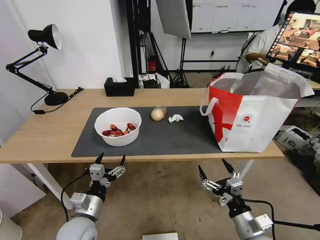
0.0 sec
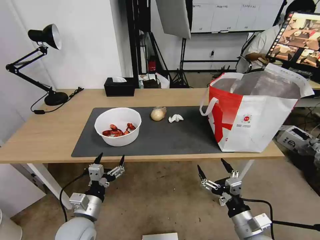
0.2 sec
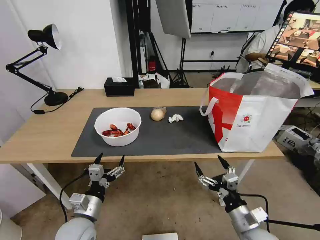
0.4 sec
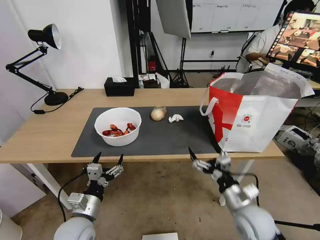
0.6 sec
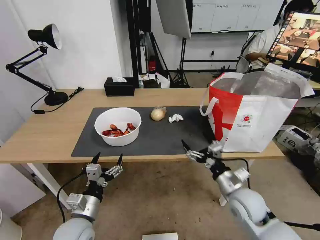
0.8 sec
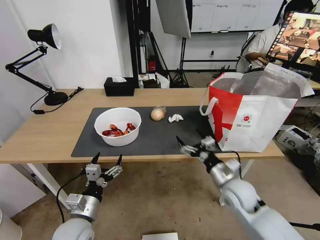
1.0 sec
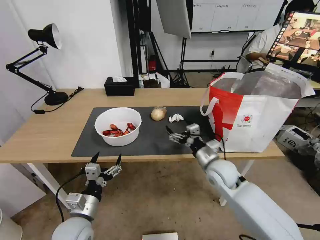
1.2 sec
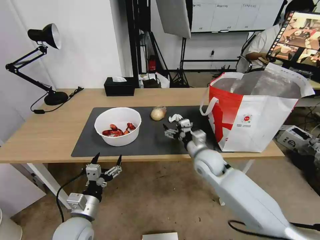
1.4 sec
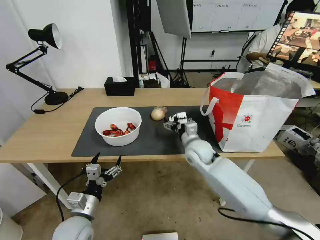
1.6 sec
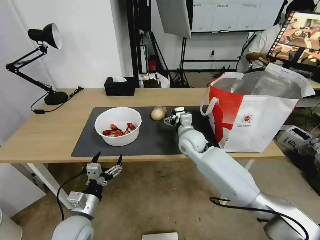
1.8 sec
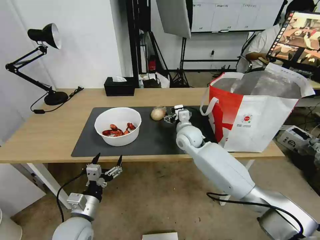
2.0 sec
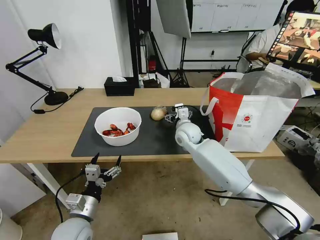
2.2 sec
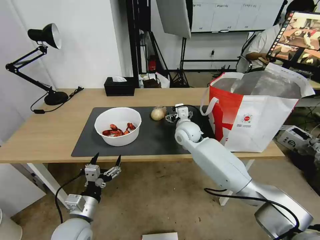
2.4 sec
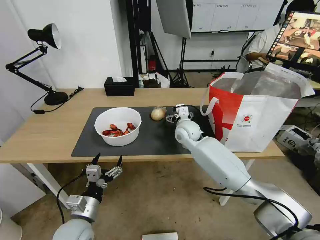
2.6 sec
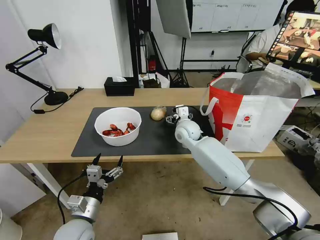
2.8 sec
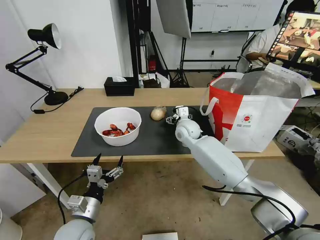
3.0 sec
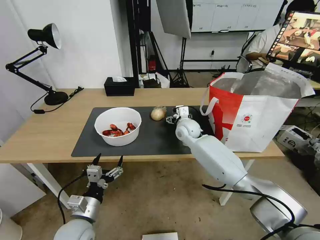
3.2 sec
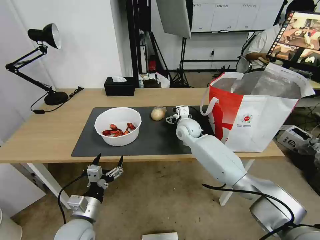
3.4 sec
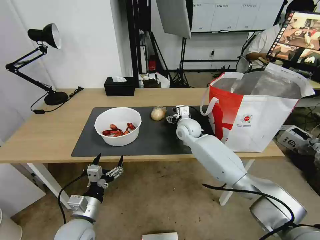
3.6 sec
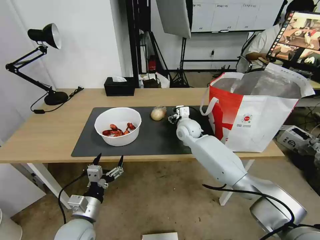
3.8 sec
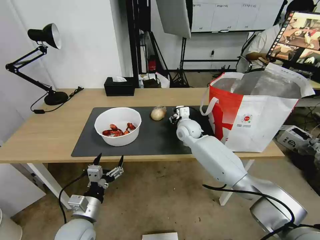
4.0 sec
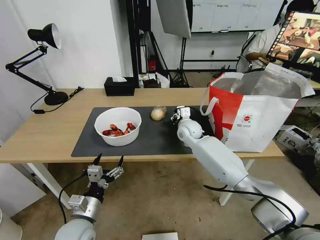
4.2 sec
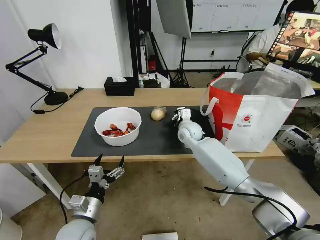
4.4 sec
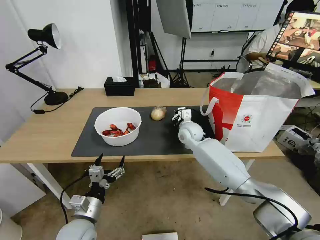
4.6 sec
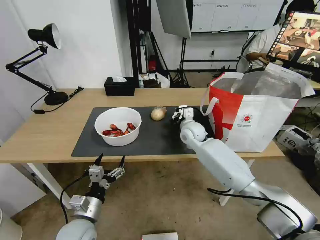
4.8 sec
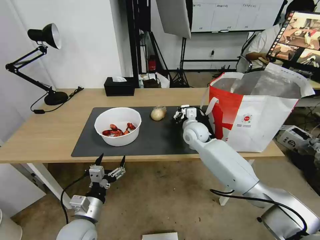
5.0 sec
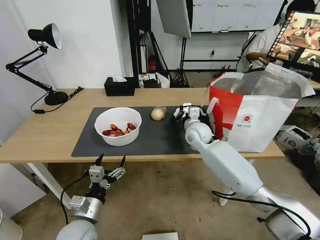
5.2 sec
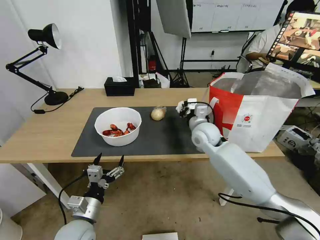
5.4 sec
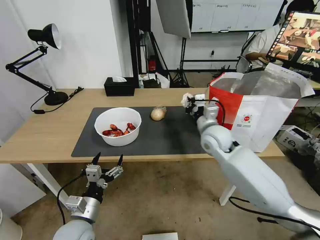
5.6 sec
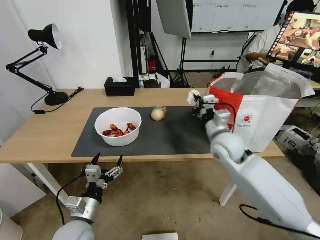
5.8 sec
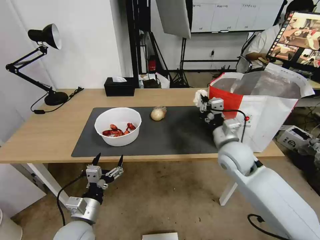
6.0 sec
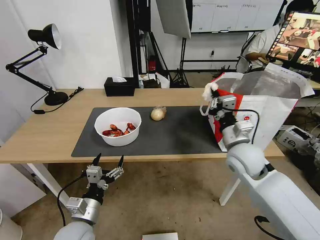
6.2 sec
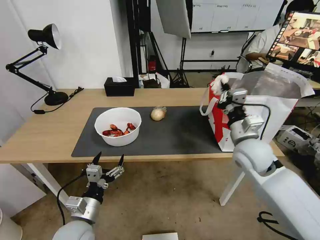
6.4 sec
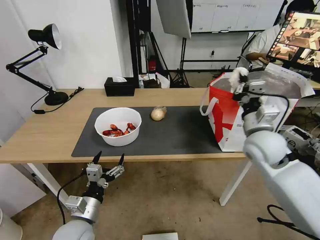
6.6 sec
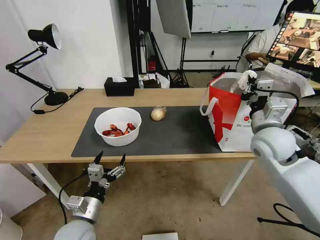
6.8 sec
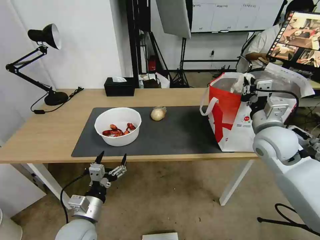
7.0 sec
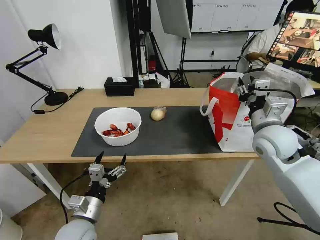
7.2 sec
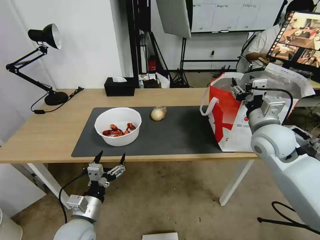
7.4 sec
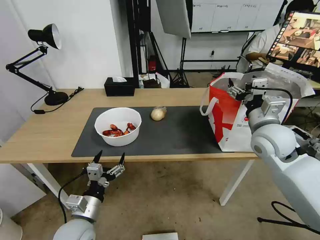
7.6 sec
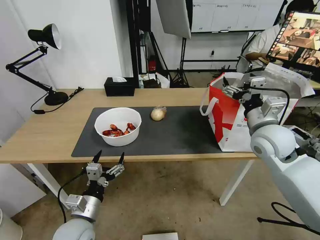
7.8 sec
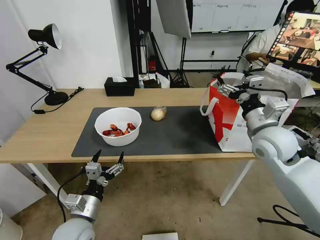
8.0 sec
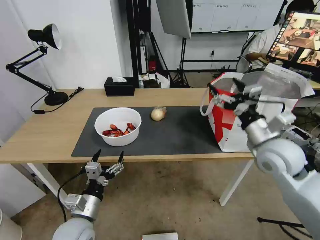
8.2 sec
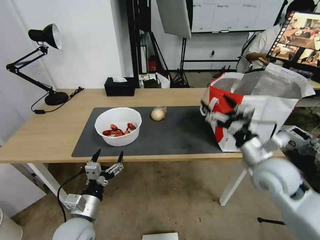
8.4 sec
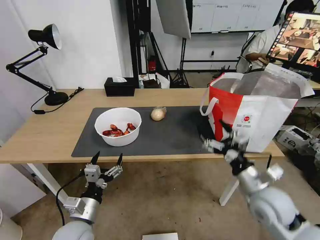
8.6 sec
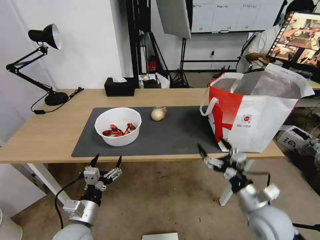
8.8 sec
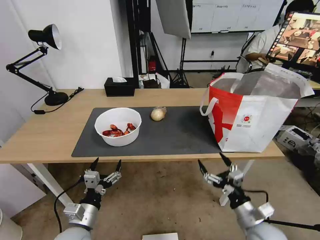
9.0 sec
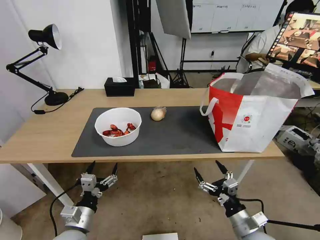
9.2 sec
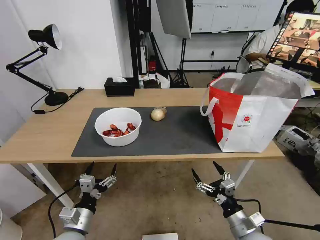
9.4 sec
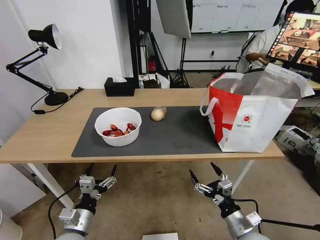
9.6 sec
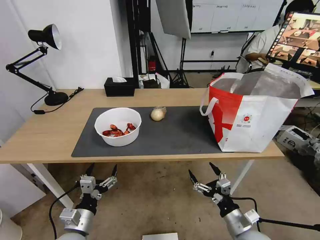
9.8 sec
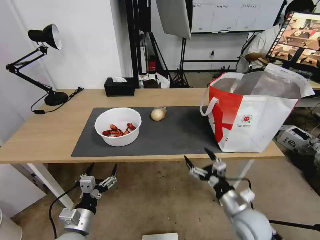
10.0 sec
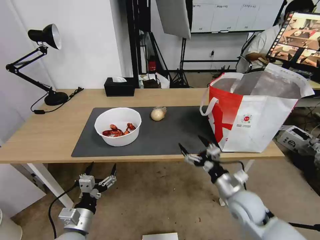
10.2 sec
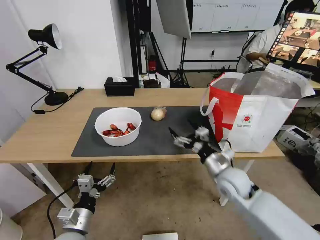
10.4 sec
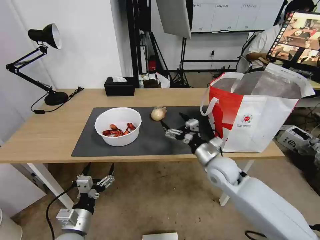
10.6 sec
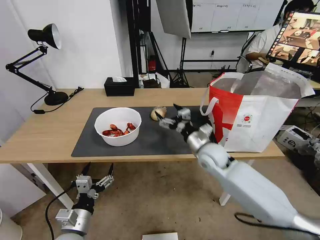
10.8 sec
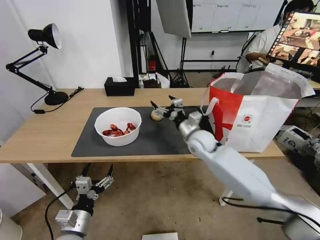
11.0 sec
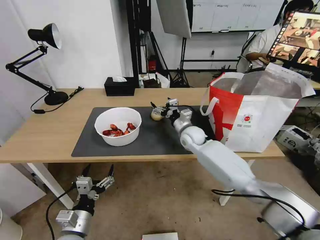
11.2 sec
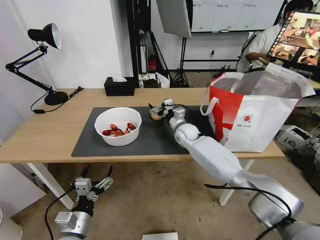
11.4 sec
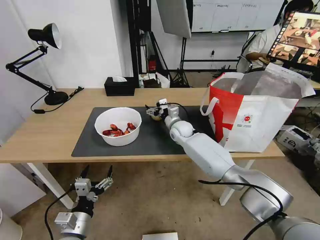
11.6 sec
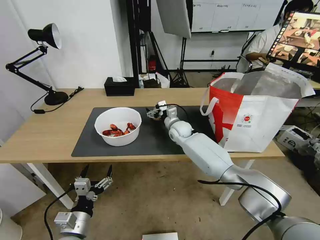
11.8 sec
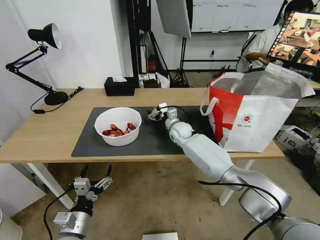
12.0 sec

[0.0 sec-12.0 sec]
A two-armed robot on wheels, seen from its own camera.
Task of the whole recording: Pick up the trash from the table and place it into the takeout bag.
0.0 sec to 1.6 sec: The right gripper goes some 30 cm forward and to the left.
1.6 sec to 3.0 sec: The right gripper travels forward by about 10 cm.
3.0 sec to 4.4 sec: The right gripper closes up.
4.4 sec to 6.0 sec: The right gripper heads backward and to the right, covering roughly 20 cm.
6.0 sec to 7.6 sec: The right gripper moves to the right and upward, about 10 cm, and opens.
7.6 sec to 9.0 sec: The right gripper travels downward and backward by approximately 30 cm.
9.0 sec to 10.4 sec: The right gripper travels forward, to the left and upward by approximately 15 cm.
10.4 sec to 12.0 sec: The right gripper travels forward and to the left by approximately 30 cm.

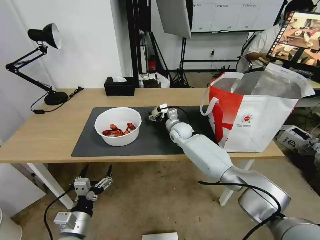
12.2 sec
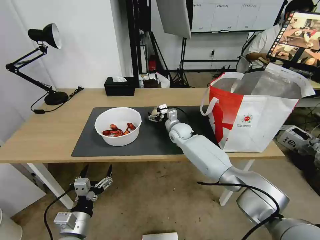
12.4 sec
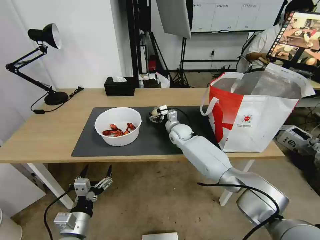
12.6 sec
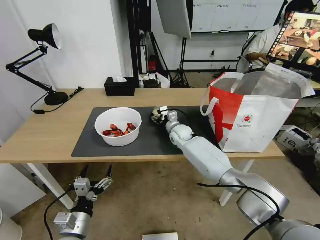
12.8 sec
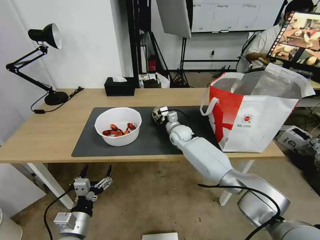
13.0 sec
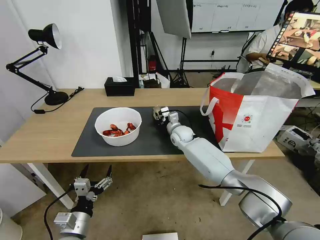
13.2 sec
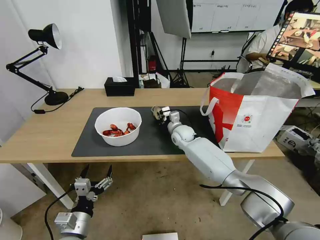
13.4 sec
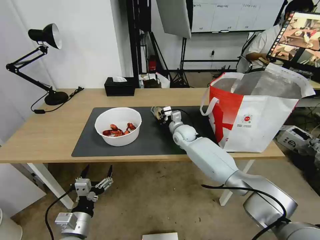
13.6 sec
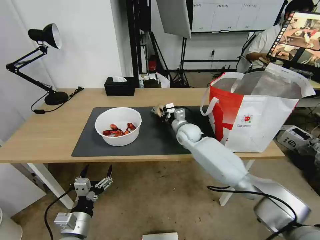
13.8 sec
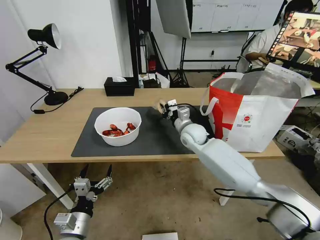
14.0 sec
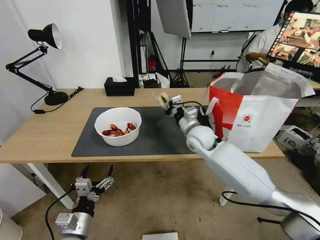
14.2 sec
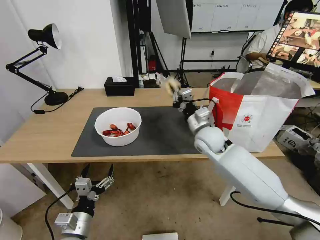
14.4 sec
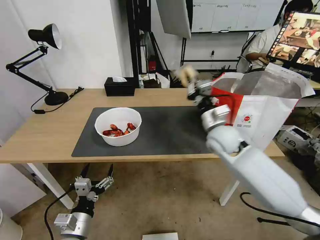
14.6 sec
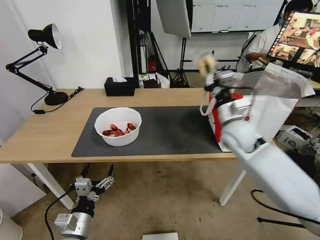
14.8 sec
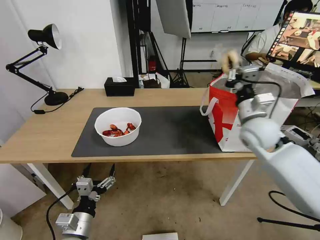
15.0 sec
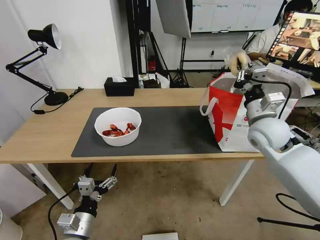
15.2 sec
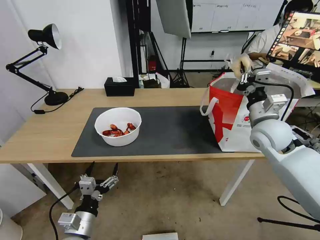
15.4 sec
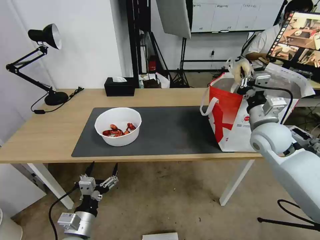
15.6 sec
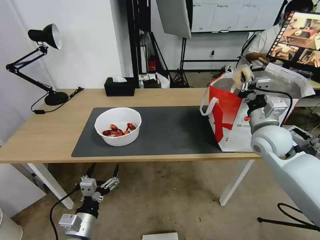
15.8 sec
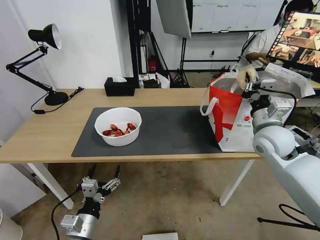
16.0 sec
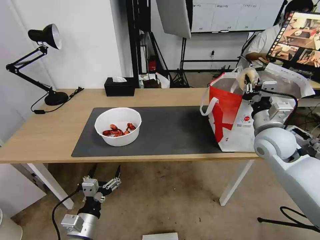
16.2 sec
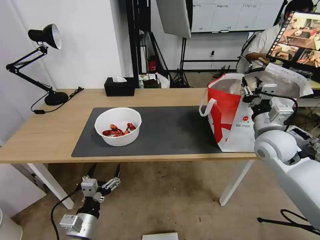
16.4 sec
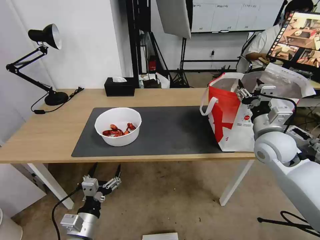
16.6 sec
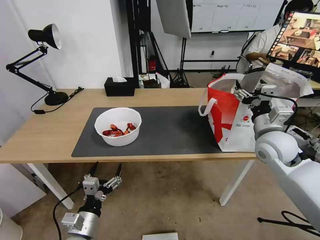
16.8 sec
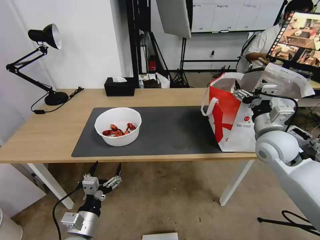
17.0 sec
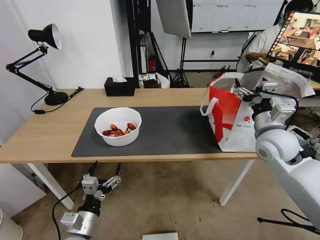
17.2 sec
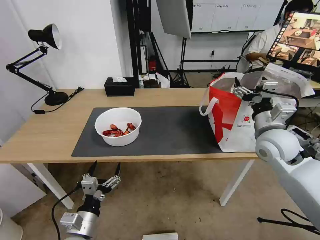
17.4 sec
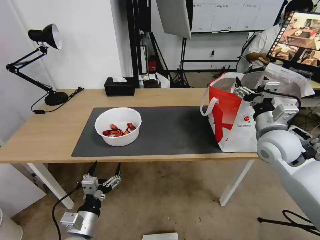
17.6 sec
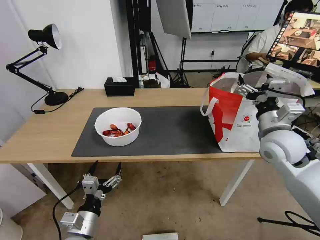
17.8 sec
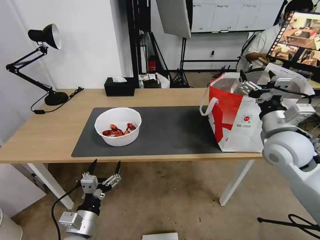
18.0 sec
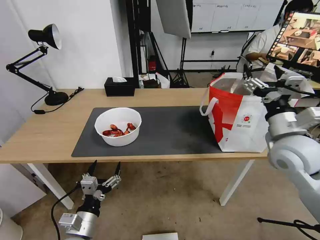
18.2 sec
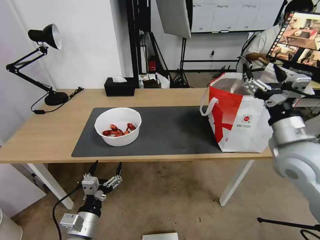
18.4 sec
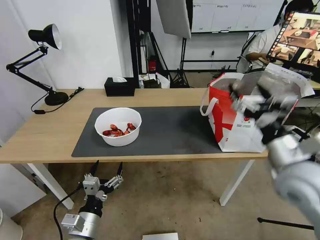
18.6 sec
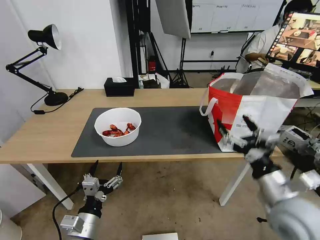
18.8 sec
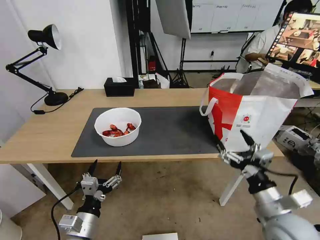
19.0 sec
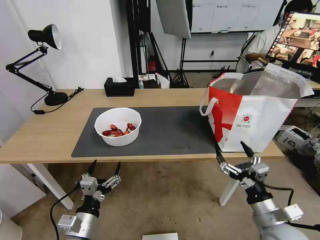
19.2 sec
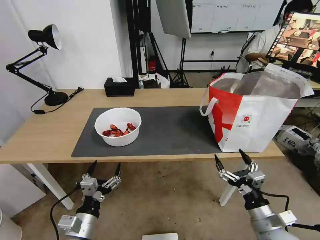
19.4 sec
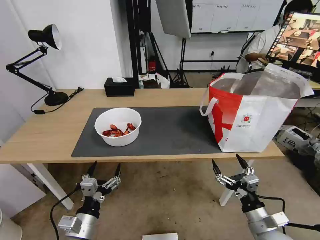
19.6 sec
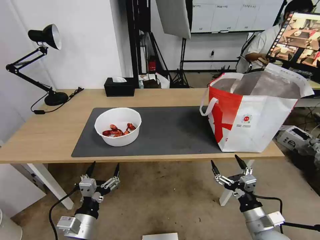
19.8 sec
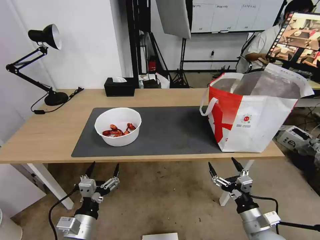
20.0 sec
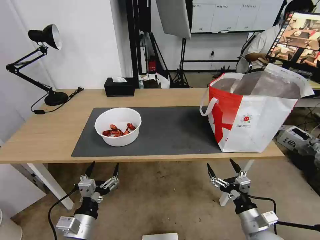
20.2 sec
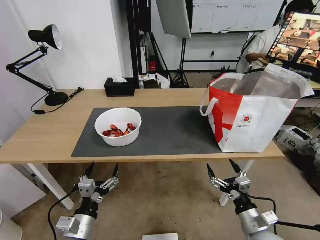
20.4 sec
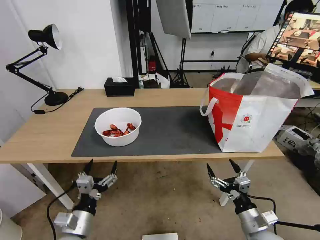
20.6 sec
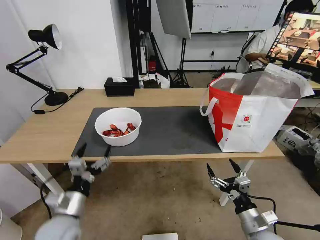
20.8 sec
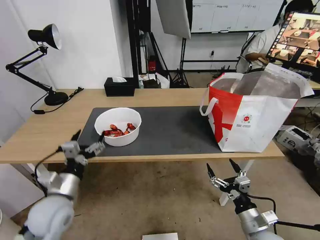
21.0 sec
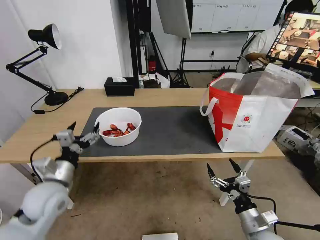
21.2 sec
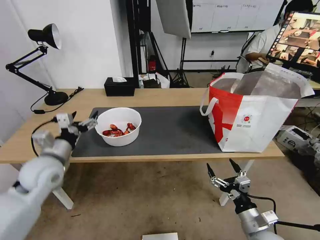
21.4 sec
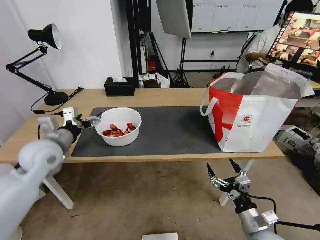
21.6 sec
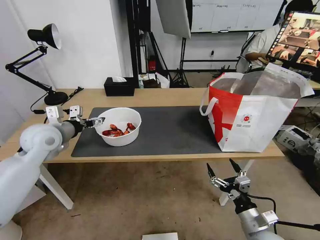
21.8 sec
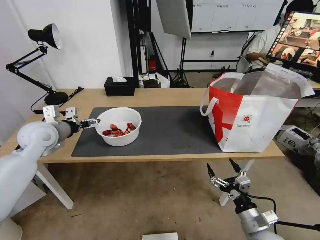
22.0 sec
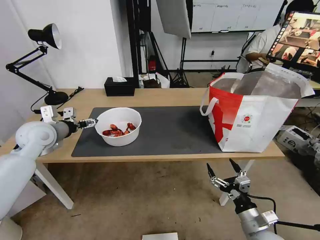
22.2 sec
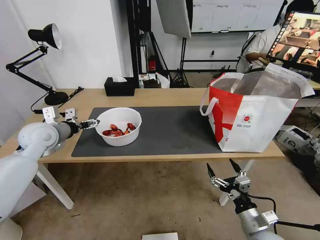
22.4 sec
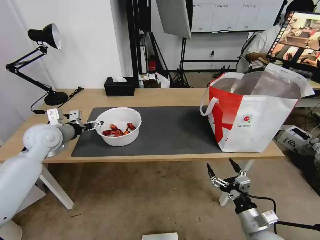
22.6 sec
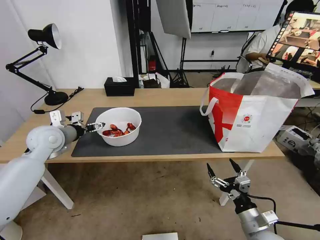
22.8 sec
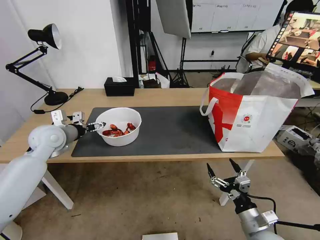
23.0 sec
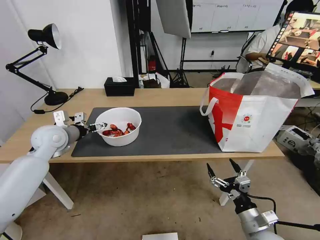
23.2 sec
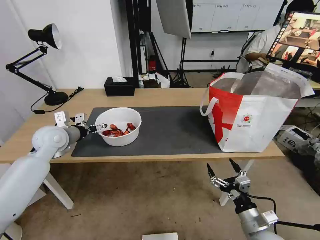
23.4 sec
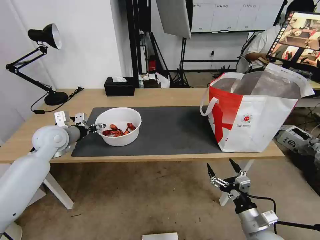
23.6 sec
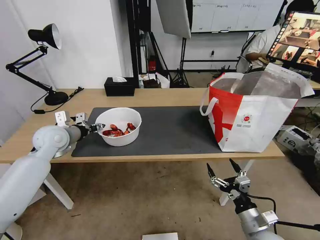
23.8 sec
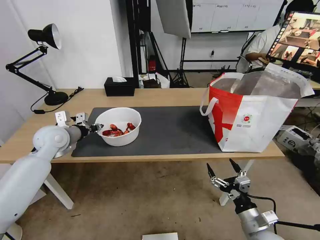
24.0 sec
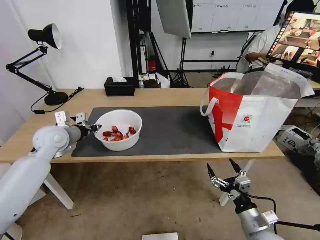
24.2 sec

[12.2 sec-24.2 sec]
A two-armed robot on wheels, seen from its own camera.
Task of the whole recording: Pick up the trash from the table and place it into the takeout bag.
12.2 sec to 13.8 sec: The right gripper closes its fingers.
13.8 sec to 15.2 sec: The right gripper moves to the right, upward and backward, about 25 cm.
15.2 sec to 16.6 sec: The right gripper opens.
16.6 sec to 18.2 sec: The right gripper is displaced backward by roughly 5 cm.
18.2 sec to 19.8 sec: The right gripper is displaced downward and backward by approximately 30 cm.
19.8 sec to 21.2 sec: The left gripper shifts approximately 15 cm forward, upward and to the left.
21.2 sec to 22.6 sec: The left gripper goes approximately 15 cm forward and upward.
22.6 sec to 24.2 sec: The left gripper closes its fingers.
